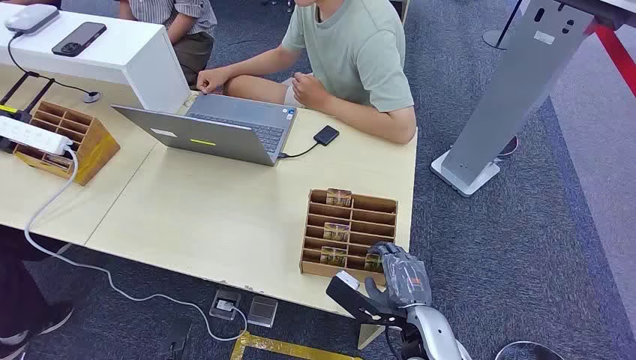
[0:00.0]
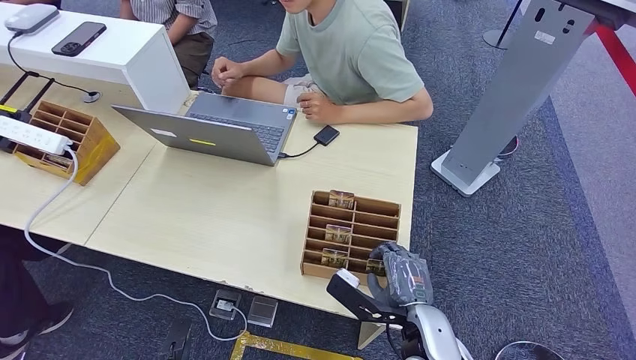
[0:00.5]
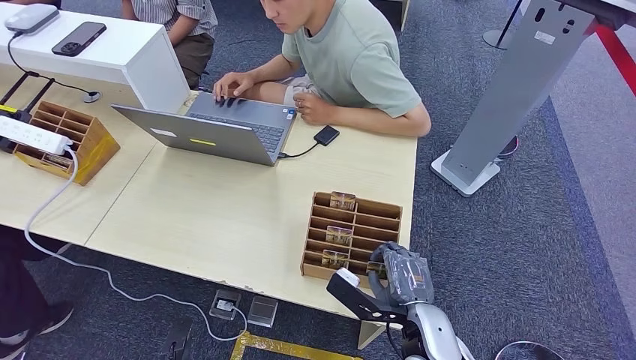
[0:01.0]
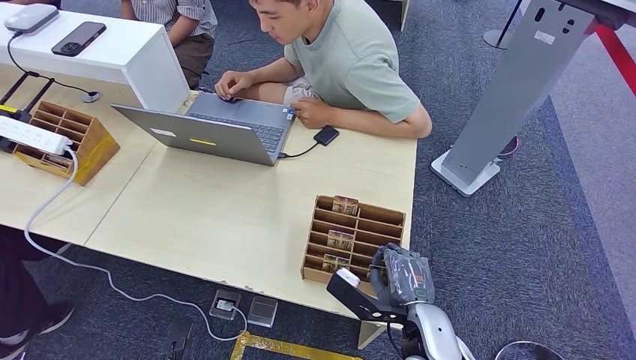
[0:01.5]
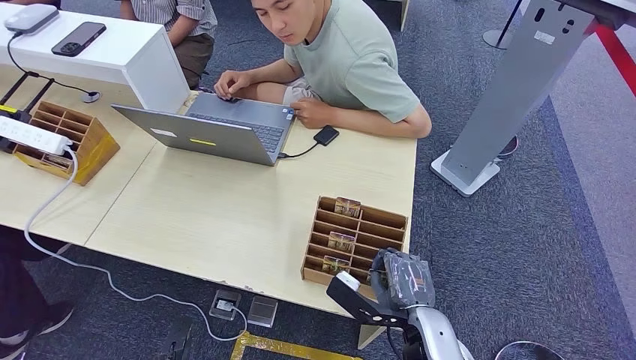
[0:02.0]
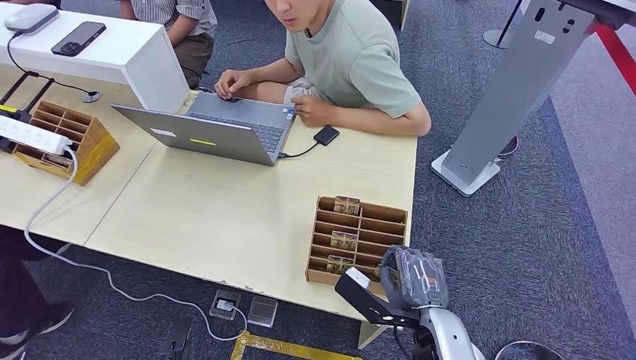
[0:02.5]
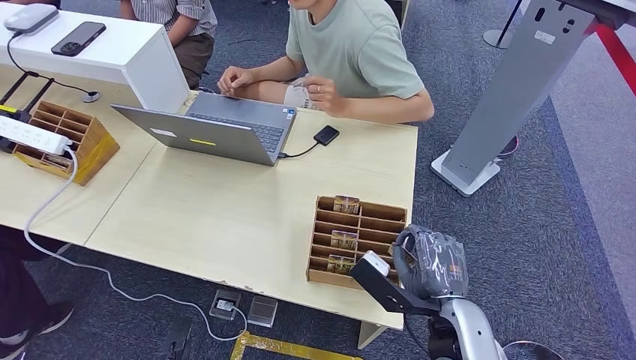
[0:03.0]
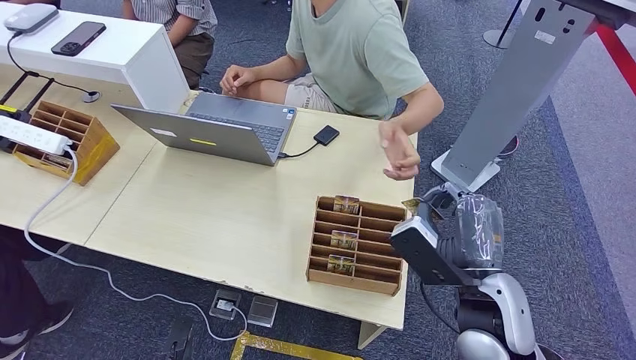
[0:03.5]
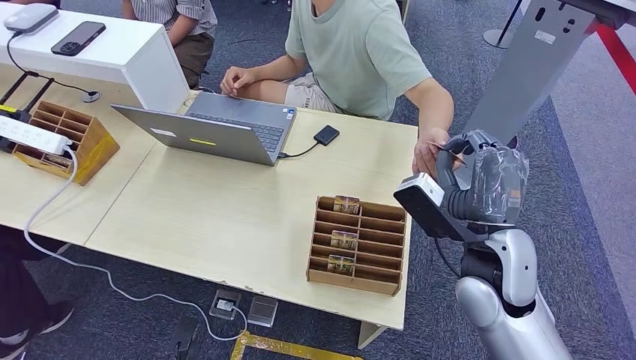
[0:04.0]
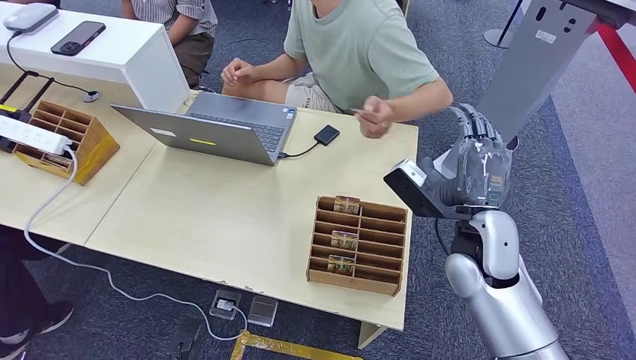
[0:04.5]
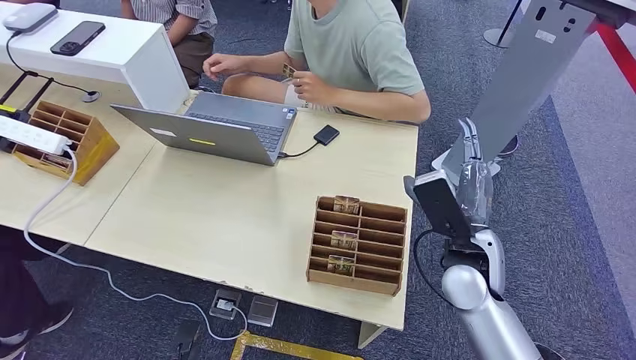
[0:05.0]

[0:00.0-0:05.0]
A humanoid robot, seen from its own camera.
Step, 0:00.0 to 0:03.0: Pick up the key card from the card box.
Step, 0:04.0 to 0:04.5: Hand the key card to the target.
0:02.5 to 0:05.0: The right hand travels forward and upward by approximately 15 cm.

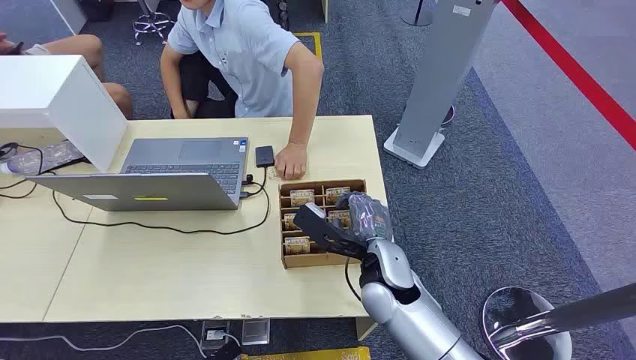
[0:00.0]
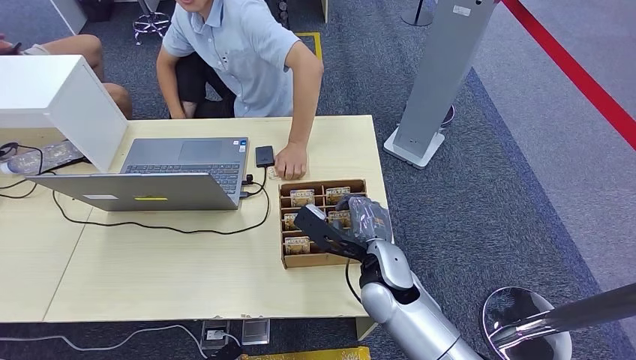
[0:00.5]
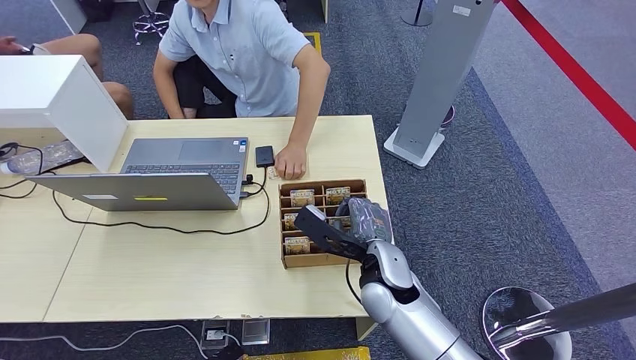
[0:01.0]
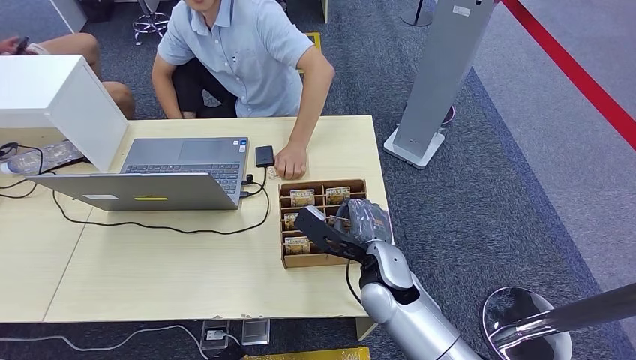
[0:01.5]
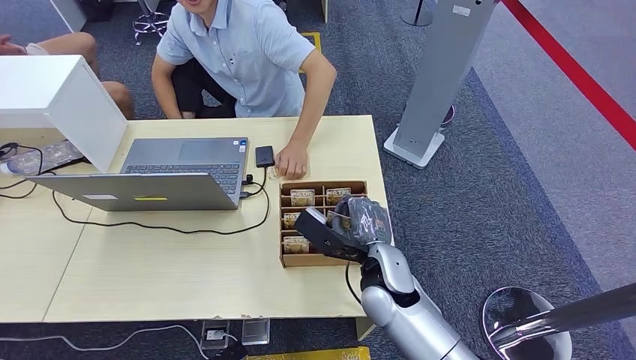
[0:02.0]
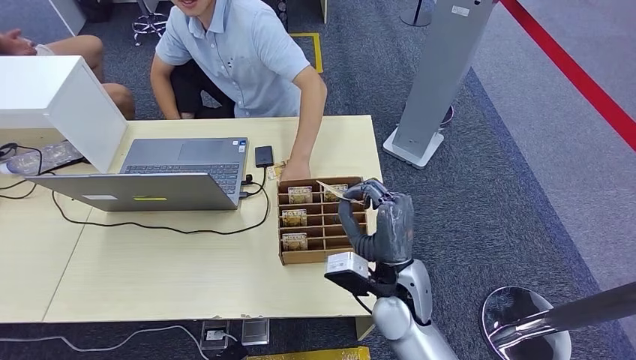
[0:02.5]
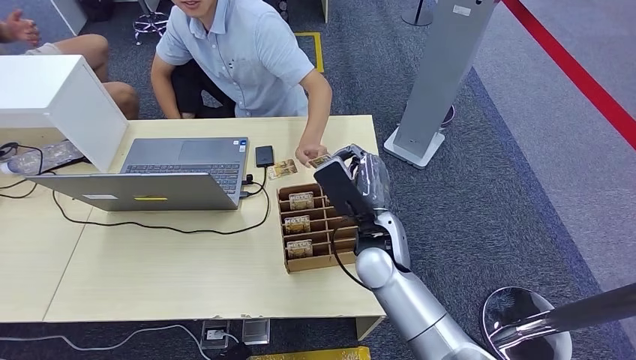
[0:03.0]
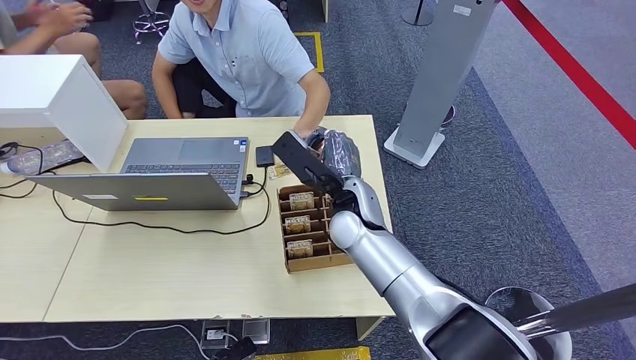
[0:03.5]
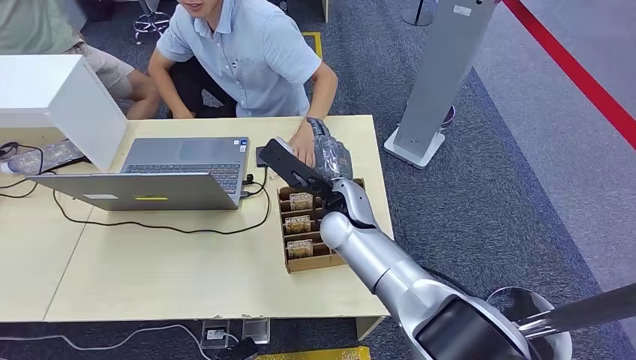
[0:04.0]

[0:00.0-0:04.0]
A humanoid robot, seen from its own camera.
Step, 0:00.0 to 0:02.0: Pick up the key card from the card box.
Step, 0:03.0 to 0:03.5: Hand the key card to the target.
0:02.0 to 0:04.0: The right hand travels forward, upward and to the left by roughly 15 cm.
